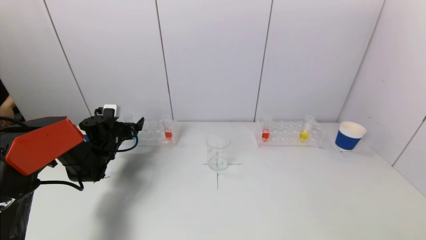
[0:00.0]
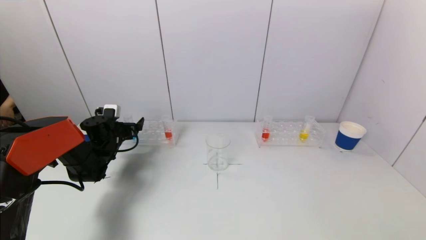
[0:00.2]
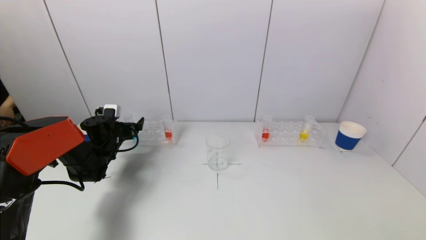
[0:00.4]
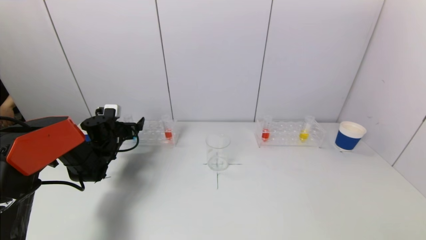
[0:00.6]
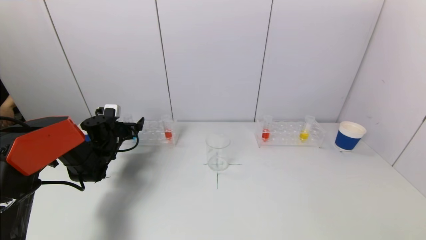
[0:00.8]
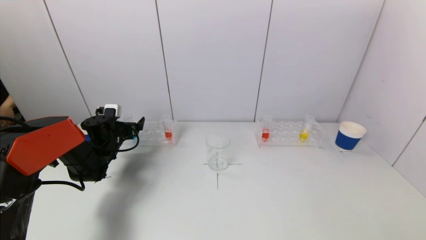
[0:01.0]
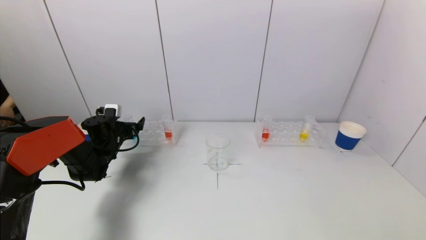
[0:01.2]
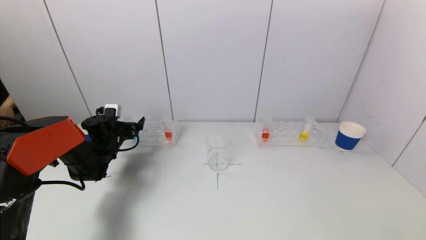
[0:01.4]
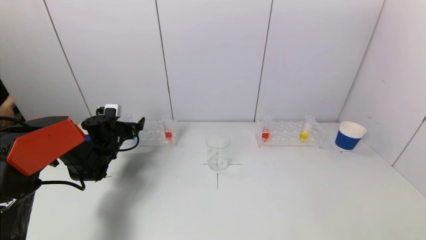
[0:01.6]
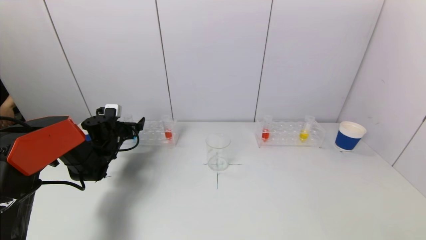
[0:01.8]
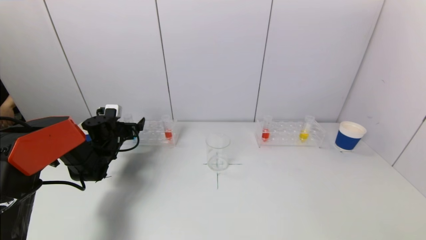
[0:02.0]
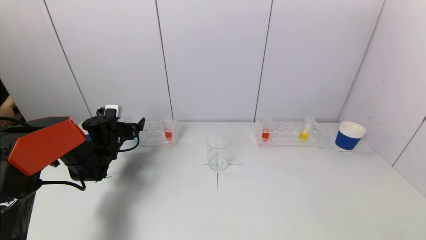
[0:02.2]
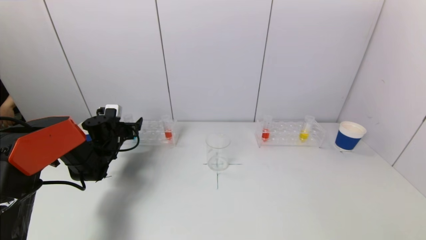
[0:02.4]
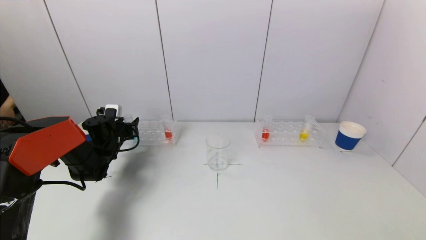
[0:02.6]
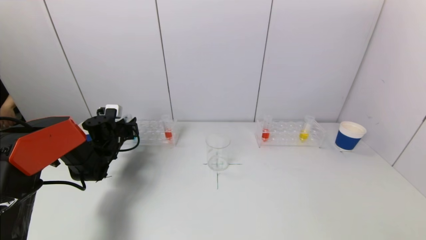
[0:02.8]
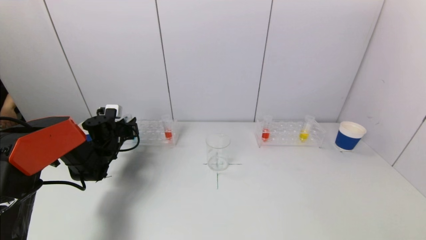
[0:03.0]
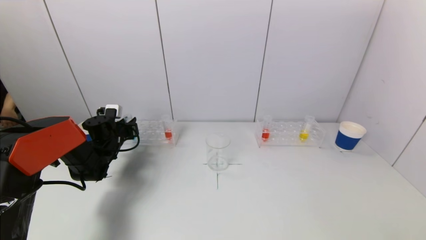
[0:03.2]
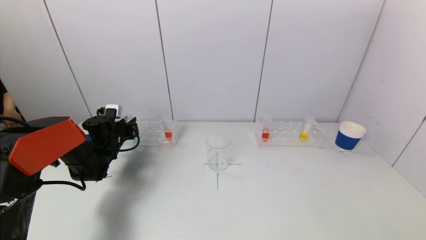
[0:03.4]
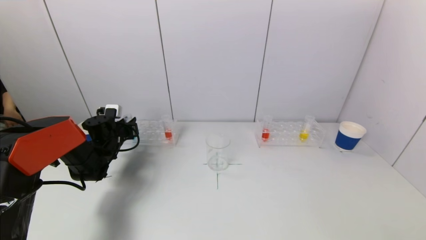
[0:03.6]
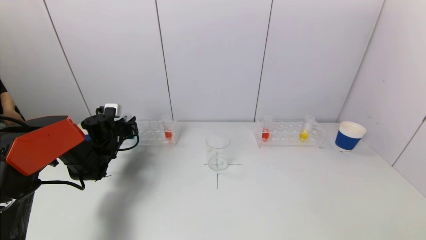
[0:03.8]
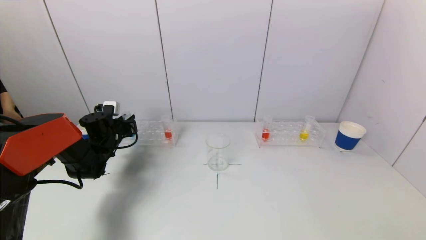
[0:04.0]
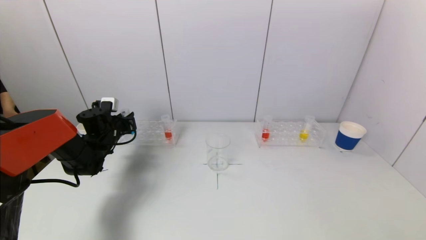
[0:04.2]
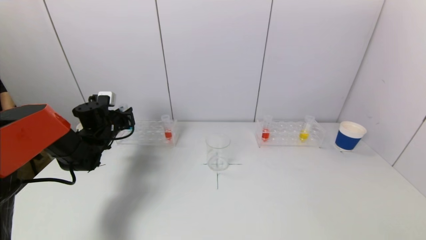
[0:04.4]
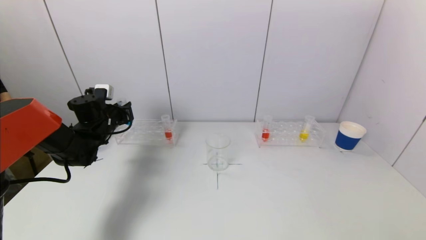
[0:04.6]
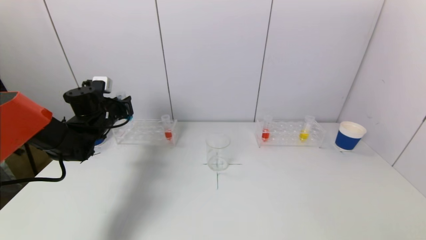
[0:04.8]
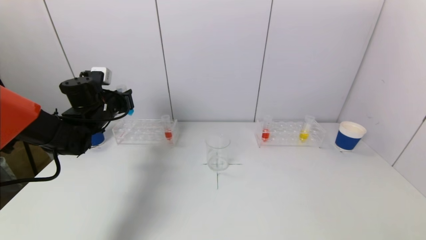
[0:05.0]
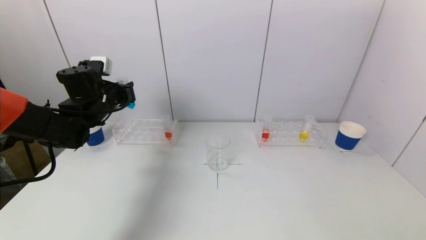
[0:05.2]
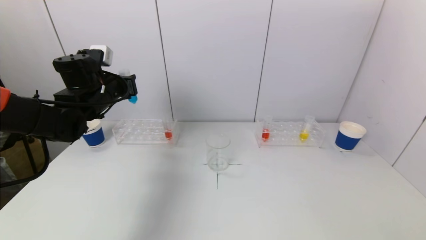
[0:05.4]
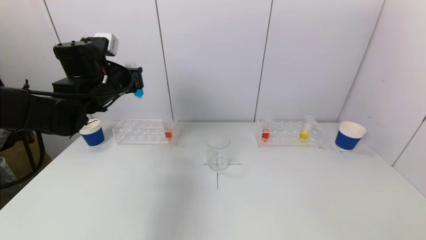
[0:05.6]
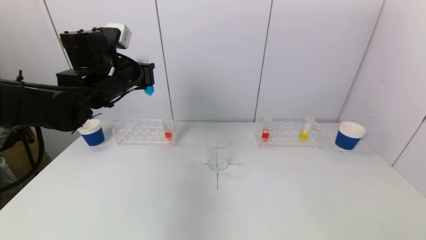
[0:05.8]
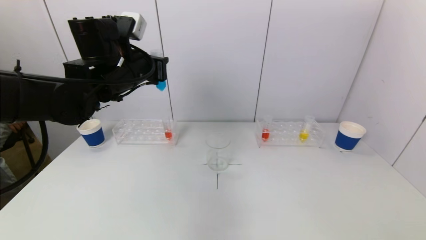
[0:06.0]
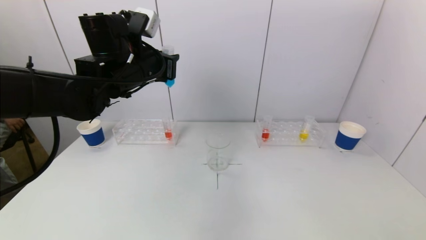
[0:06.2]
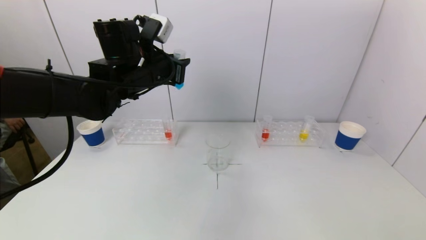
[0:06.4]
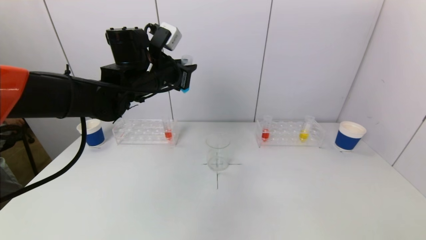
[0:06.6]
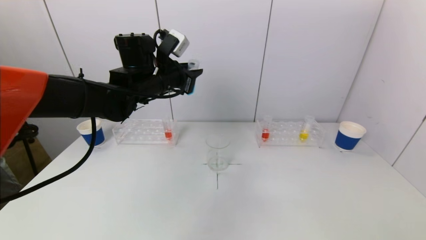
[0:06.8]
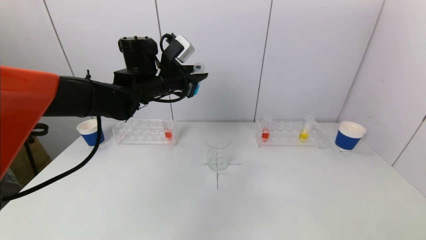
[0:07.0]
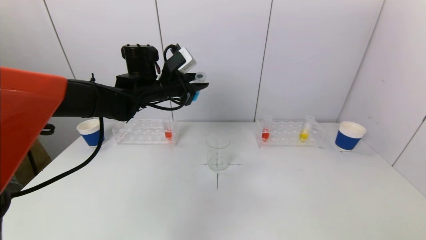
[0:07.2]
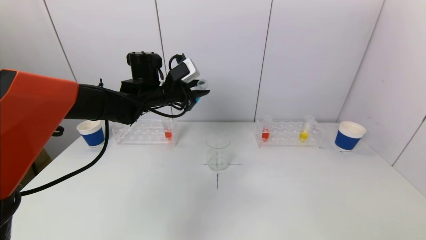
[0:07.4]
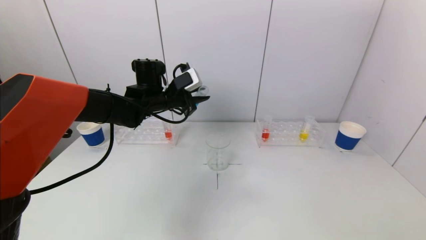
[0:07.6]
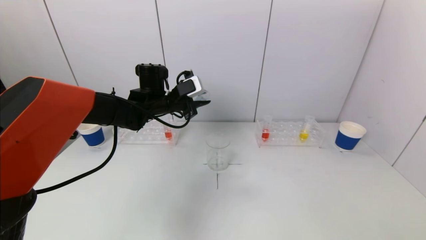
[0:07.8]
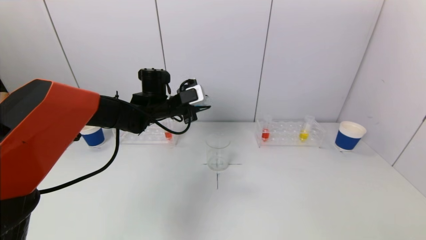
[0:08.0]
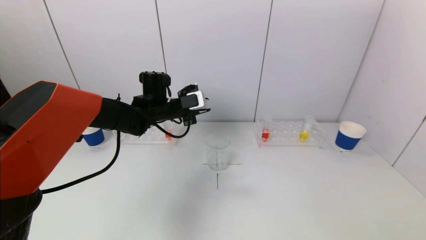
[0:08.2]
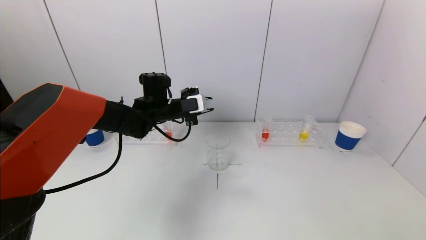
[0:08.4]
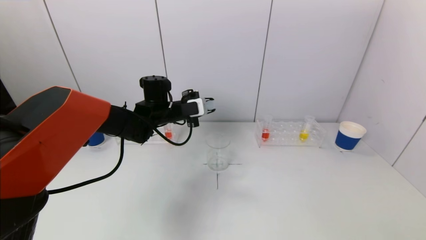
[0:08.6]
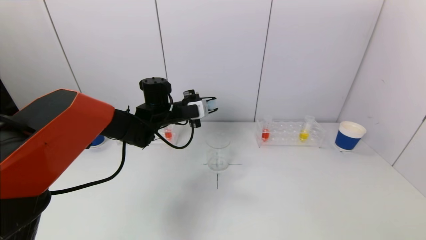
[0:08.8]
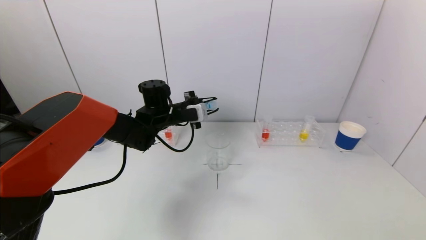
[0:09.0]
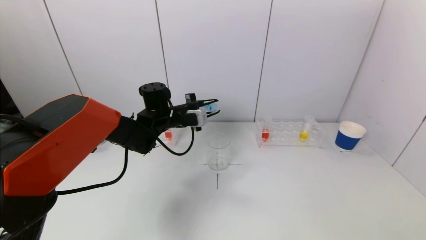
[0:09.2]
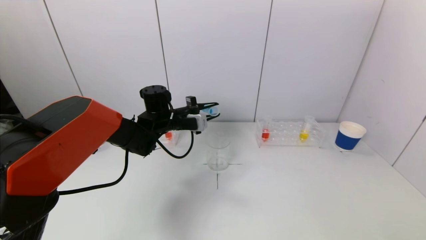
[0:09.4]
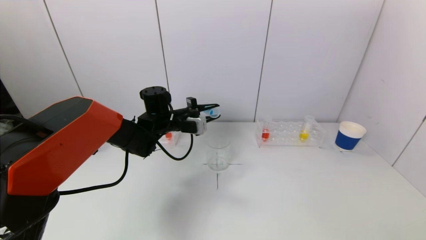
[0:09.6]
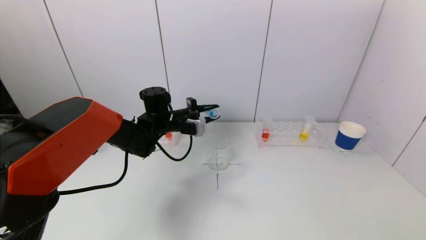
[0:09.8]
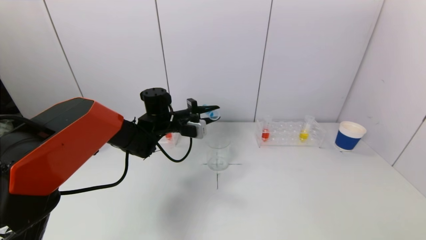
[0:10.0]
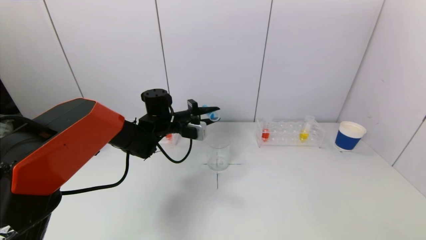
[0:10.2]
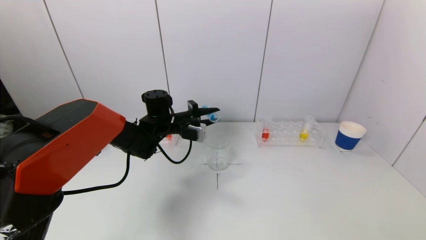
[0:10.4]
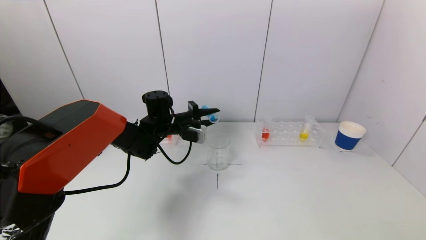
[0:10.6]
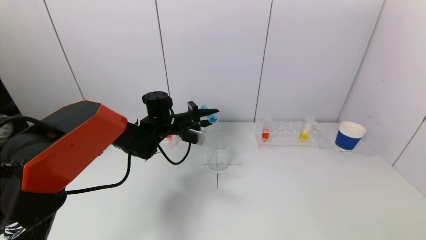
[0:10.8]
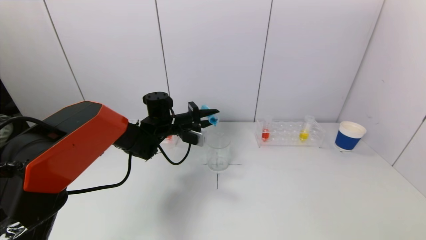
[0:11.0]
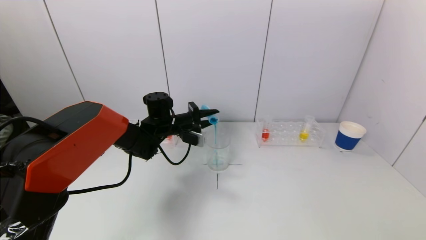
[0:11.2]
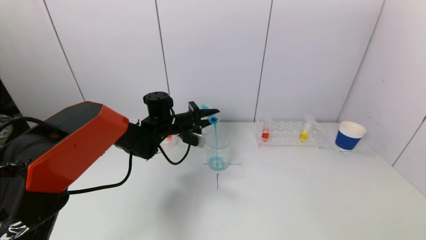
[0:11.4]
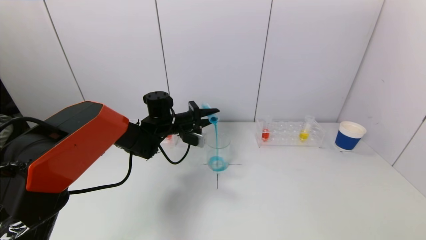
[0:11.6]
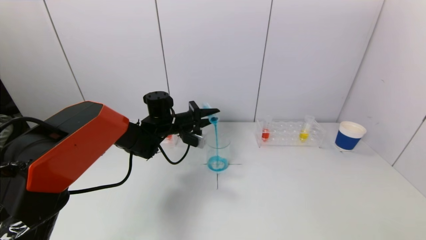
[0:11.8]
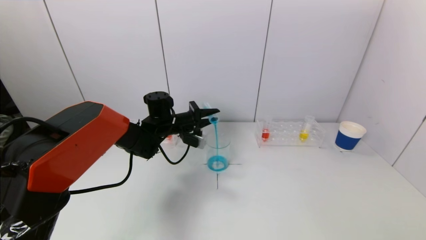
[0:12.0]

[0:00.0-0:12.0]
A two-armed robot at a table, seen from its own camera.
Task of the whole recording: pick up a test tube with pigment on left test tube rack and a test tube with pigment on right test tube rack by grippers and pour them into the beaker.
0:00.0 to 0:01.6: Both grippers stay about where they are.
0:01.6 to 0:03.0: The left gripper closes.
0:03.0 to 0:04.4: The left gripper shifts some 5 cm upward.
0:04.4 to 0:06.0: The left gripper moves upward, to the right and backward, about 25 cm.
0:06.0 to 0:07.6: The left gripper is displaced downward and forward by roughly 10 cm.
0:09.0 to 0:10.4: The grippers make only small movements.
0:10.4 to 0:12.0: The grippers move only a little.

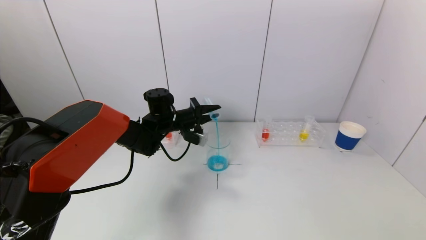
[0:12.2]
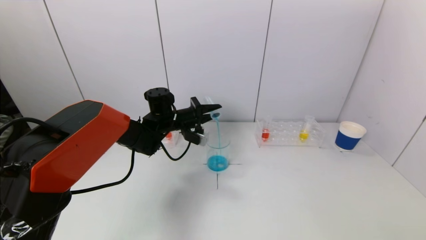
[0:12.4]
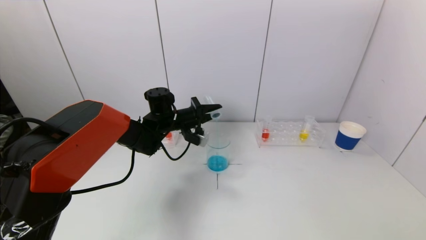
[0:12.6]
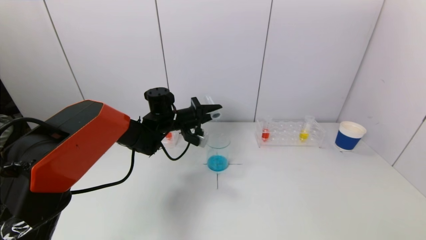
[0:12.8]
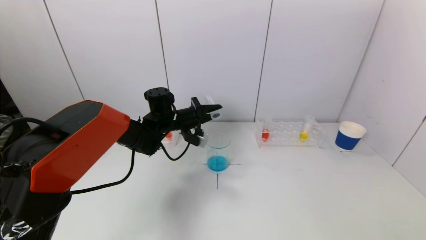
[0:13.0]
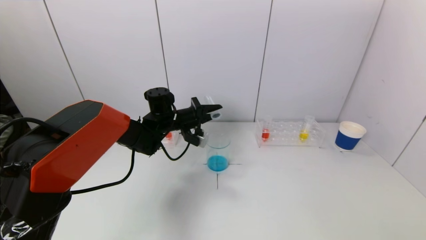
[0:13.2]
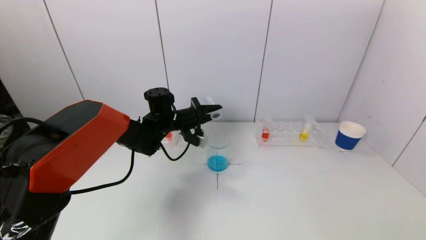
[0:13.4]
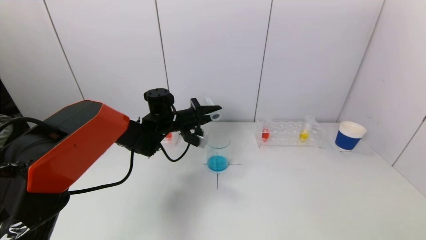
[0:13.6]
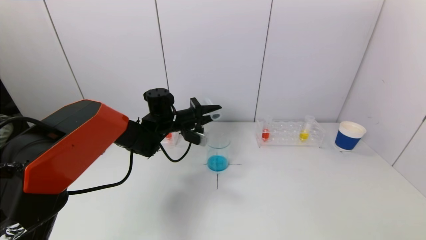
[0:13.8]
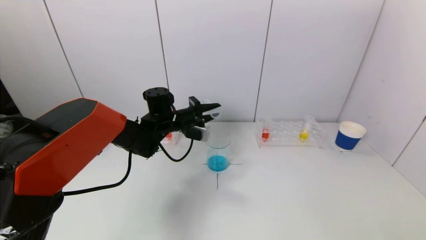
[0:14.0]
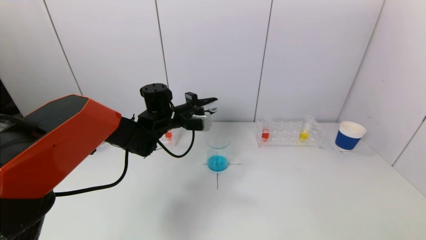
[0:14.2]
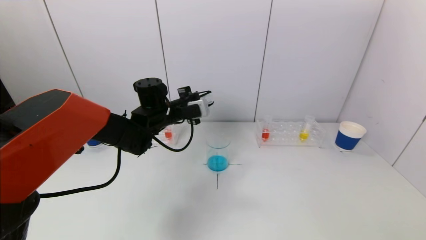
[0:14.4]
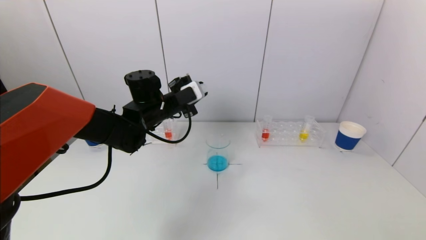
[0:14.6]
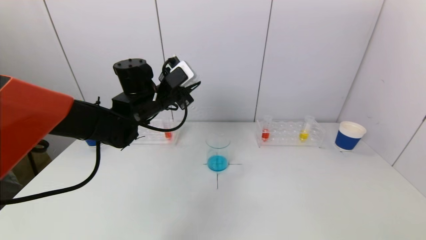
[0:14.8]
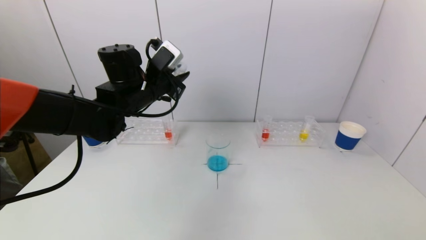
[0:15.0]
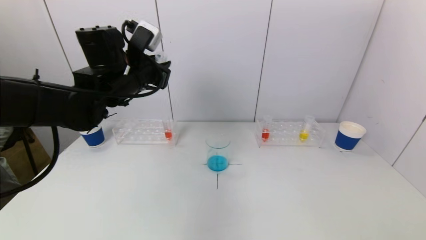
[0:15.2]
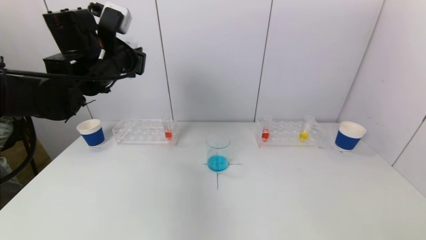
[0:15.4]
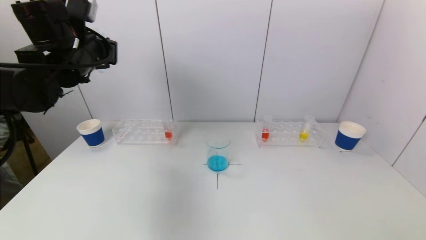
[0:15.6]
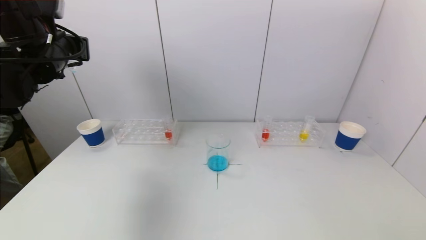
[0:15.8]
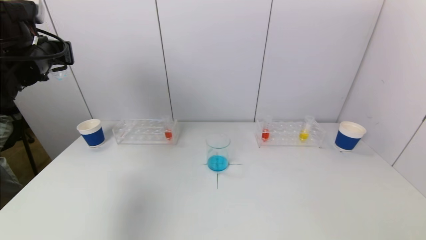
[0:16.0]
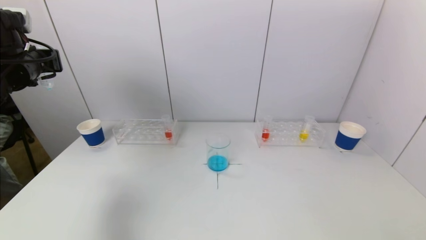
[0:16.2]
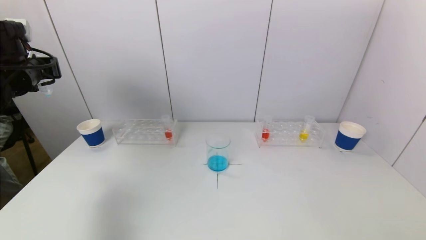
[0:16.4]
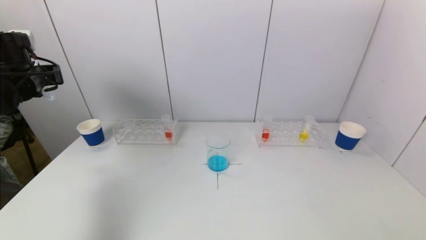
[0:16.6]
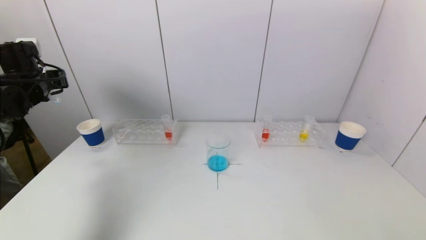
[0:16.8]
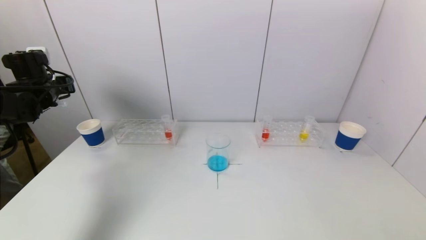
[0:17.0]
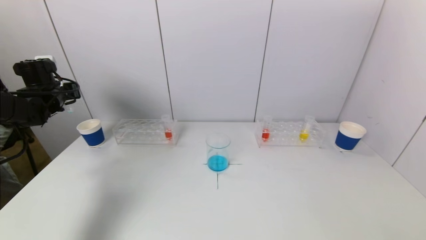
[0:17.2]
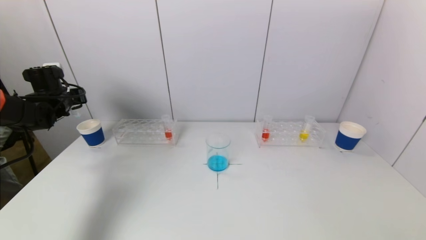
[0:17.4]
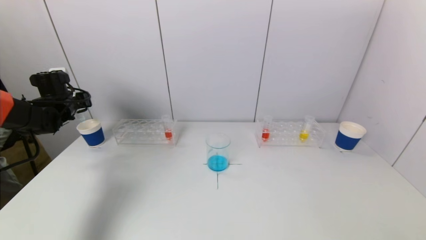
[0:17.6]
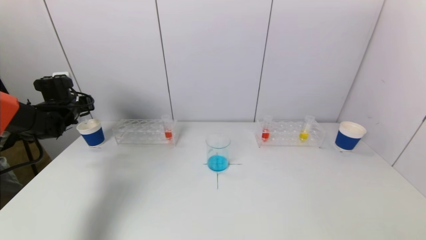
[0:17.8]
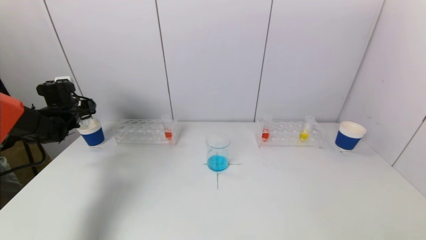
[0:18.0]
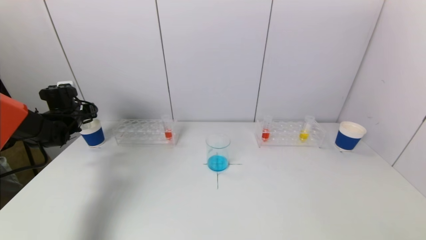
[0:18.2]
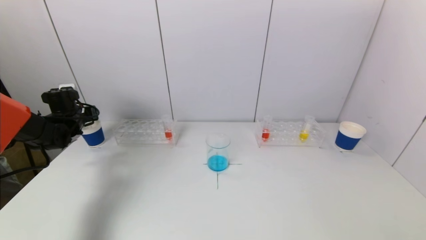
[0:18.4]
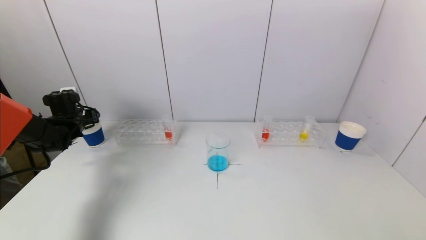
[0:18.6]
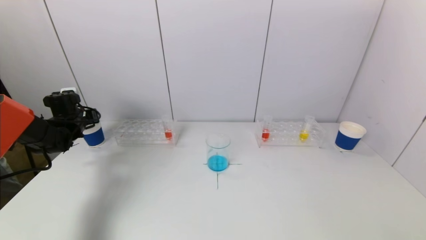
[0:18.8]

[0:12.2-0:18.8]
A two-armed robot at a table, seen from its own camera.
Task of the whole recording: pick up a test tube with pigment on left test tube rack and a test tube with pigment on right test tube rack by grippers and pour them into the beaker.
0:12.2 to 0:13.8: There are only small adjustments of the grippers.
0:13.8 to 0:15.4: The left gripper moves upward, to the left and backward, some 20 cm.
0:15.4 to 0:17.2: The left gripper goes about 20 cm to the left and downward.
0:17.2 to 0:18.8: The left gripper heads downward, covering approximately 10 cm.
